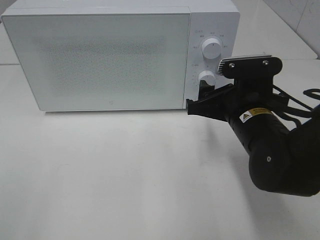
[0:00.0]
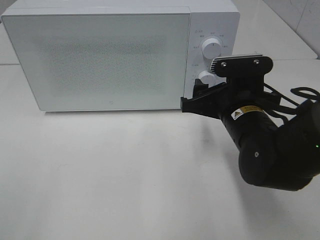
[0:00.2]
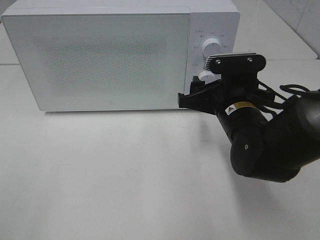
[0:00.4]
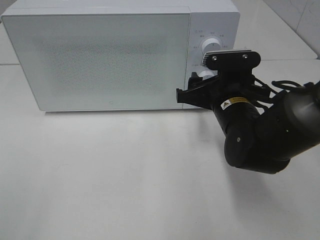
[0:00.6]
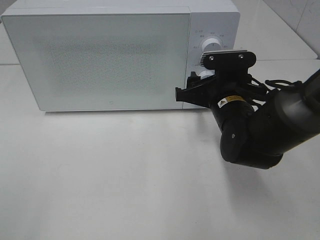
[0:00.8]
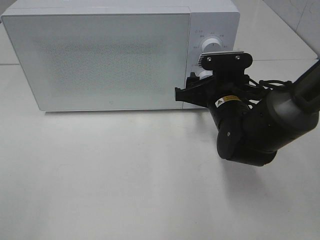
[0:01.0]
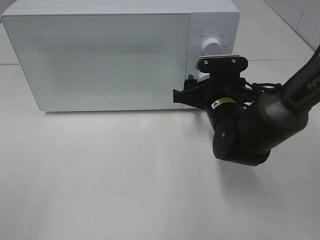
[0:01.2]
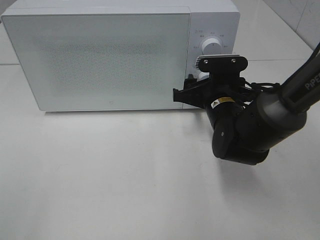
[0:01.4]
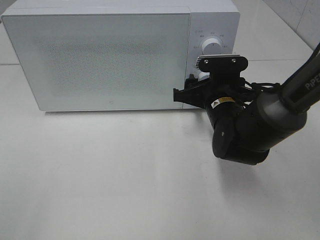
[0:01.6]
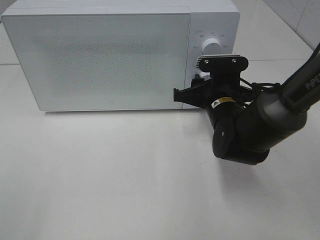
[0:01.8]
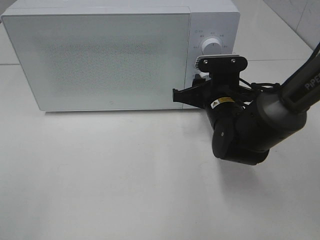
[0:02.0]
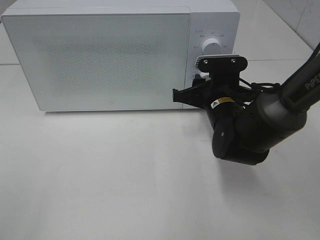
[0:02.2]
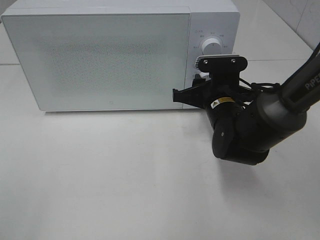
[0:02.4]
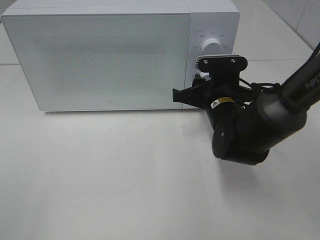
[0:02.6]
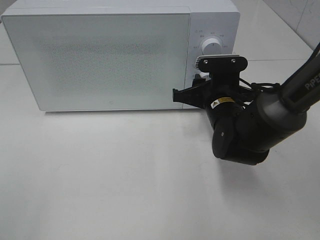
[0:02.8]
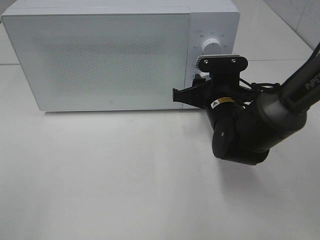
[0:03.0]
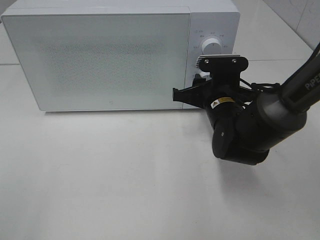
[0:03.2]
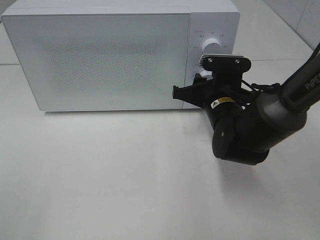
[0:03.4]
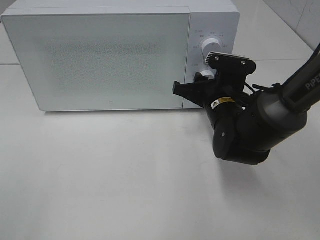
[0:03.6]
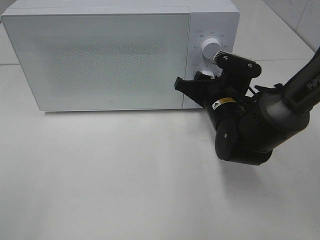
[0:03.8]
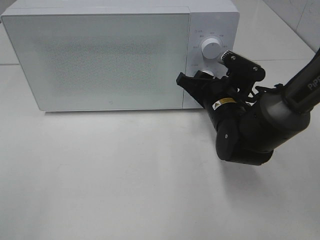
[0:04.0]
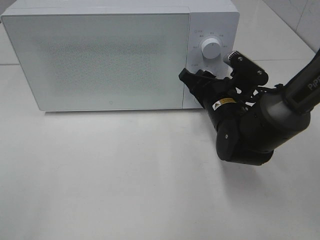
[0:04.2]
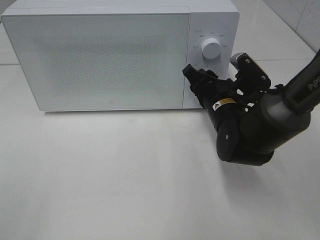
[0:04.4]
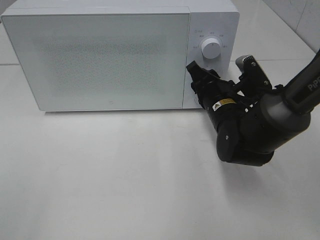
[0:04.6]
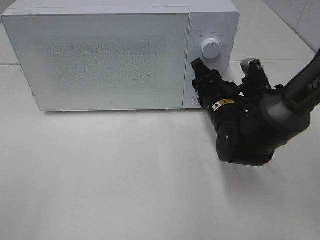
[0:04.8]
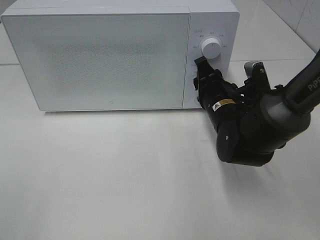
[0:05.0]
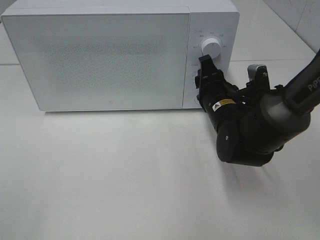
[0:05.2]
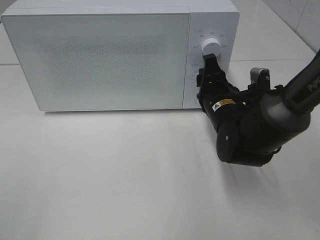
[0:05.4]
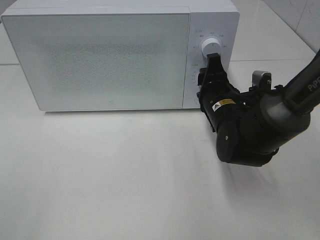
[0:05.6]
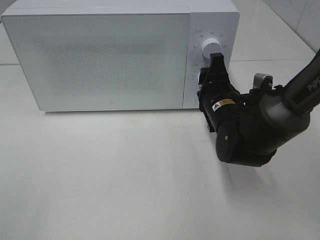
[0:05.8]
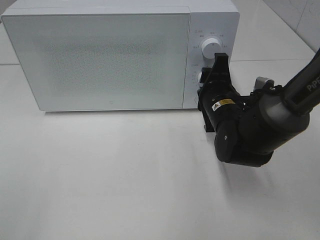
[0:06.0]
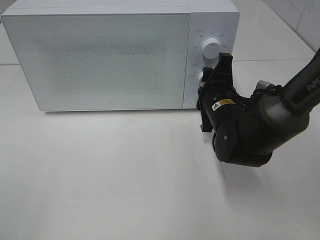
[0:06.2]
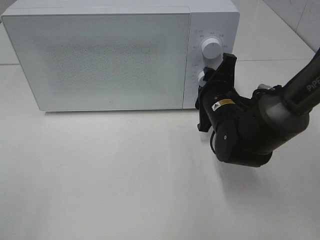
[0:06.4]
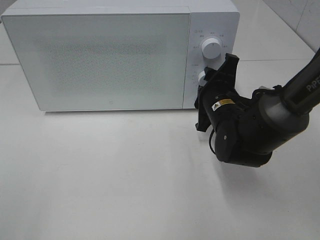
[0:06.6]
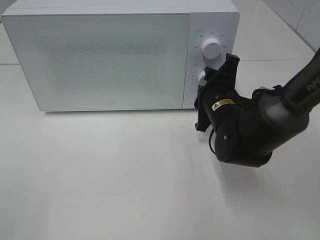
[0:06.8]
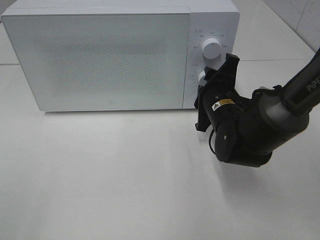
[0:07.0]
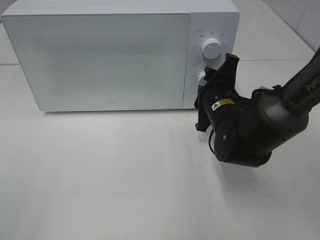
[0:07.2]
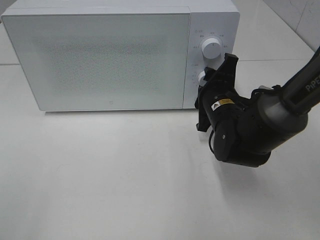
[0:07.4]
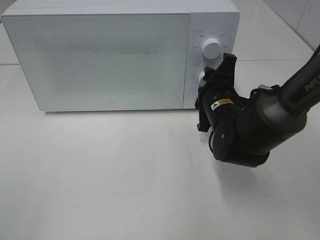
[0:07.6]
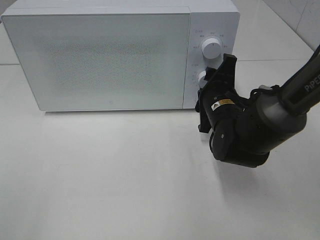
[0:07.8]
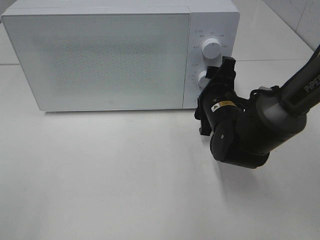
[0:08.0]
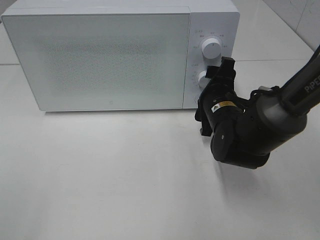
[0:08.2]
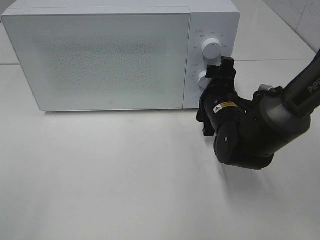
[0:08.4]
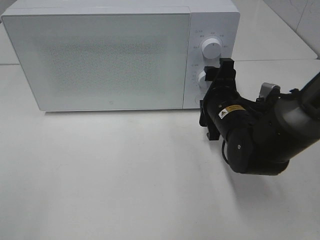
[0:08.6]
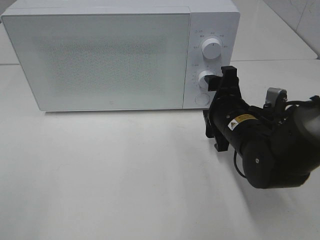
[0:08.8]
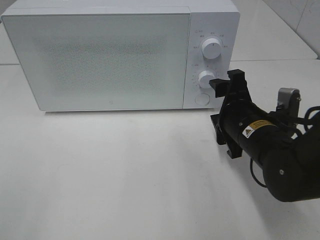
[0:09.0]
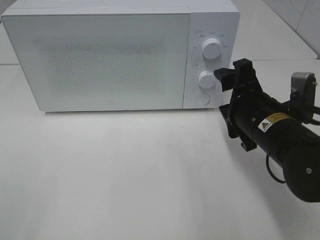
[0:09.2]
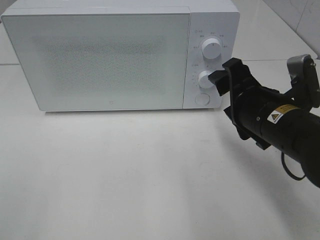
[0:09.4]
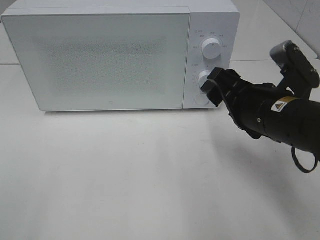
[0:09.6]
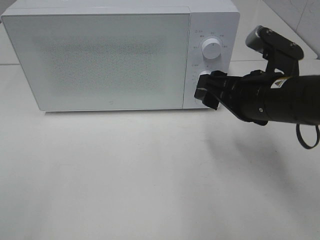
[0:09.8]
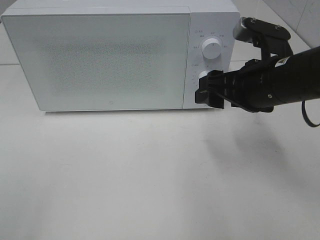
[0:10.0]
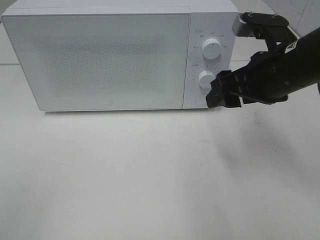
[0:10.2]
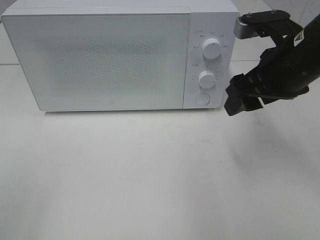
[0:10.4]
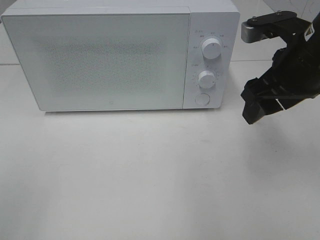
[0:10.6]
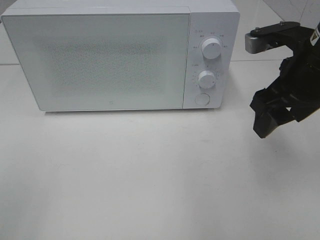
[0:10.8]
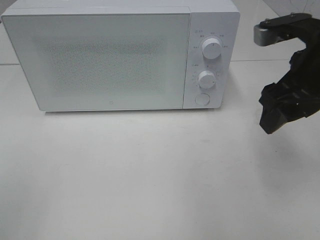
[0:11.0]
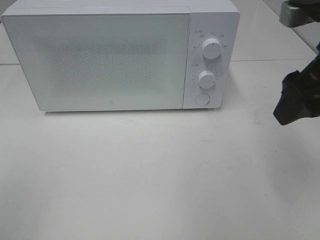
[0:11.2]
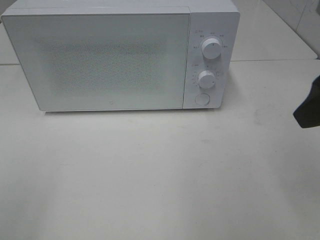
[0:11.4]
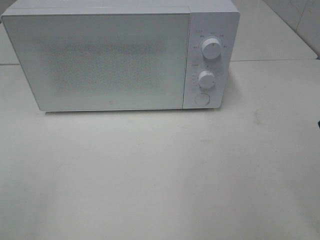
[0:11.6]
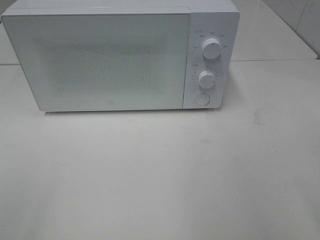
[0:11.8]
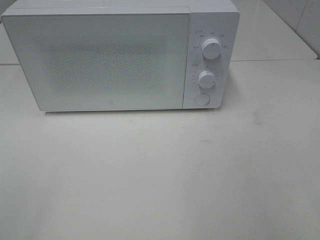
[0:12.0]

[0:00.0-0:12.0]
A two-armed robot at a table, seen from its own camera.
Task of the whole recording: Heat the burger.
Step, 0:00.0 to 0:08.2: Right hand: twist timer button.
0:00.0 to 0:01.6: The right gripper shifts roughly 5 cm forward.
0:01.6 to 0:03.0: The two grippers keep their place.
0:06.0 to 0:07.6: The grippers move only a little.
0:07.6 to 0:09.0: The right gripper is displaced backward by approximately 5 cm.
0:09.0 to 0:10.4: The right gripper moves upward, roughly 10 cm.
0:10.4 to 0:12.0: The right gripper is displaced backward by about 20 cm.

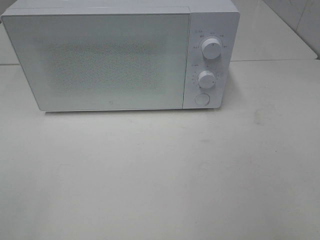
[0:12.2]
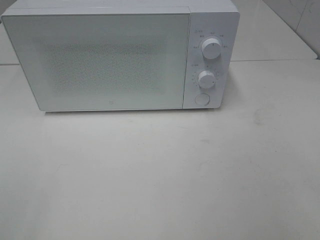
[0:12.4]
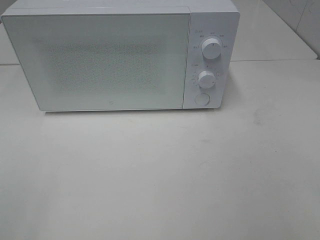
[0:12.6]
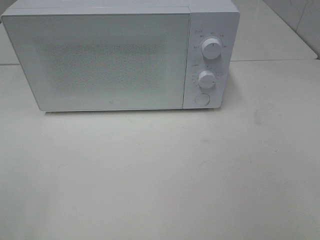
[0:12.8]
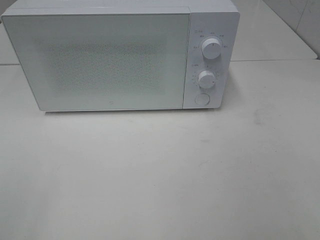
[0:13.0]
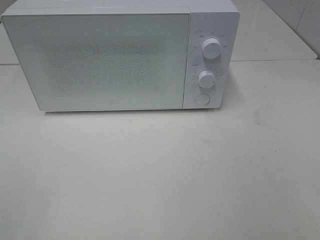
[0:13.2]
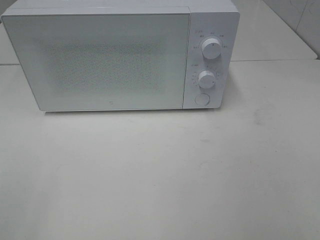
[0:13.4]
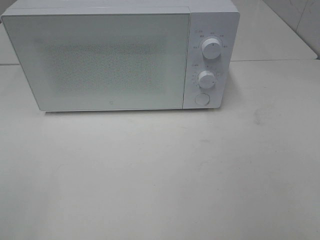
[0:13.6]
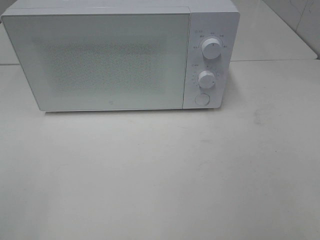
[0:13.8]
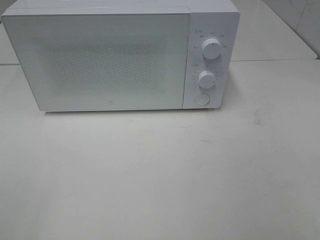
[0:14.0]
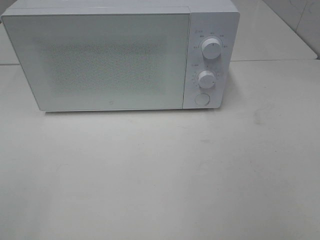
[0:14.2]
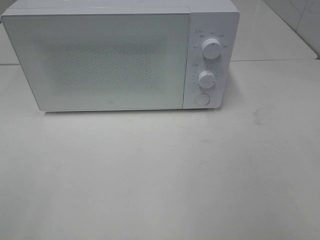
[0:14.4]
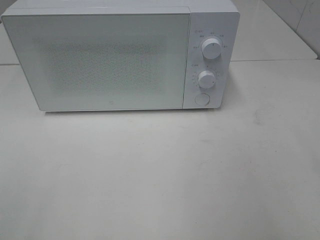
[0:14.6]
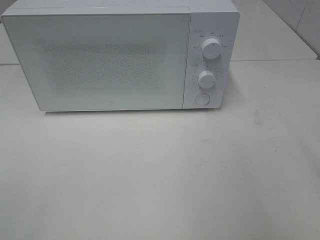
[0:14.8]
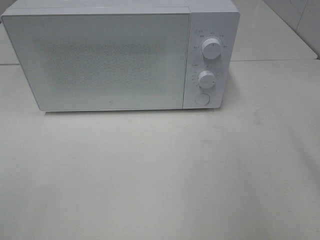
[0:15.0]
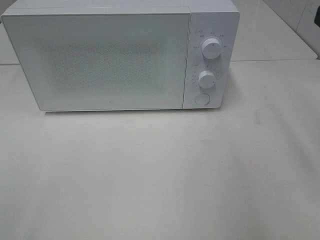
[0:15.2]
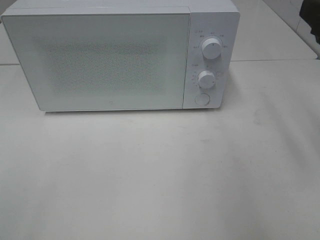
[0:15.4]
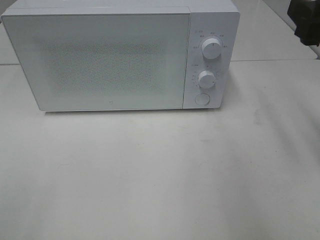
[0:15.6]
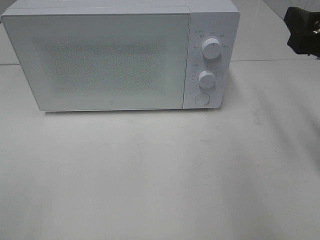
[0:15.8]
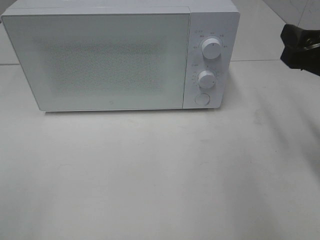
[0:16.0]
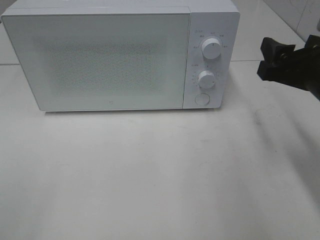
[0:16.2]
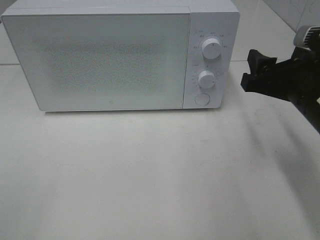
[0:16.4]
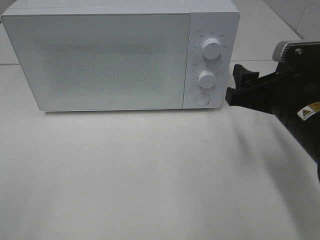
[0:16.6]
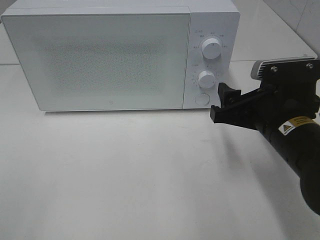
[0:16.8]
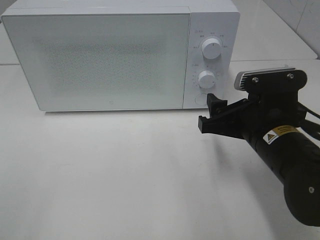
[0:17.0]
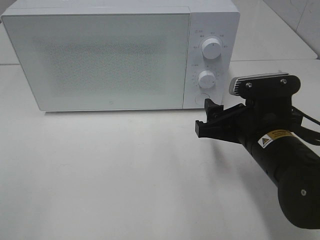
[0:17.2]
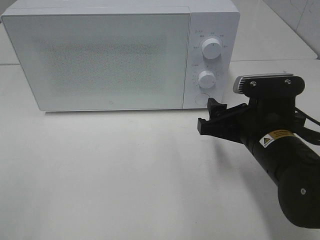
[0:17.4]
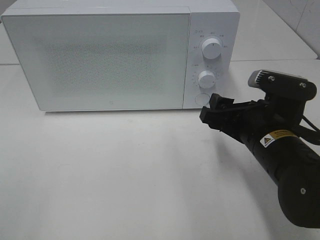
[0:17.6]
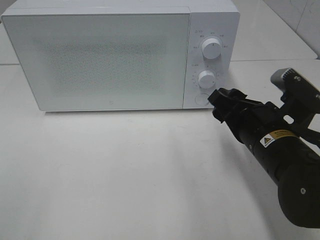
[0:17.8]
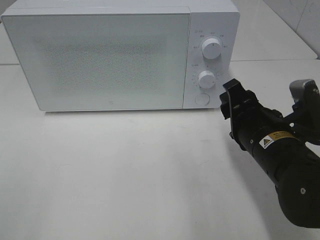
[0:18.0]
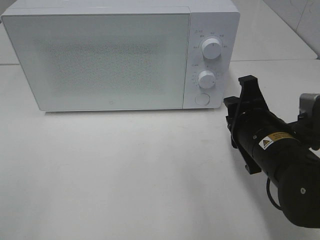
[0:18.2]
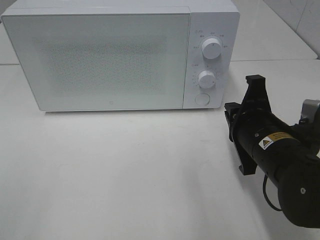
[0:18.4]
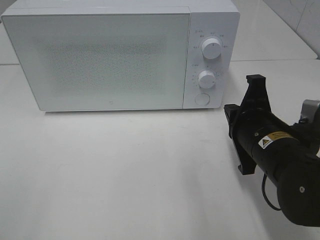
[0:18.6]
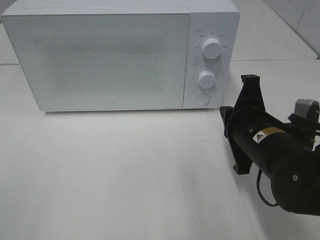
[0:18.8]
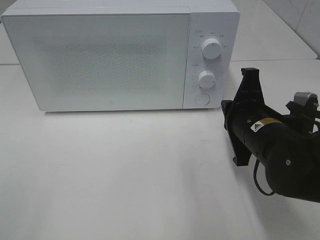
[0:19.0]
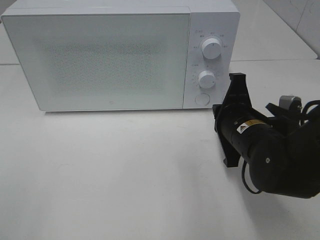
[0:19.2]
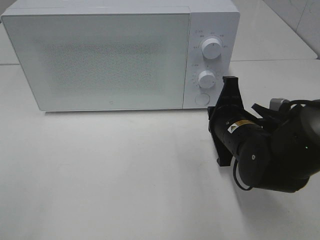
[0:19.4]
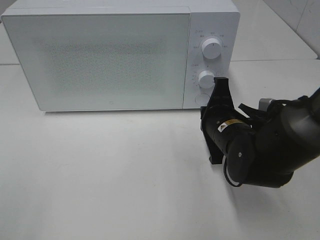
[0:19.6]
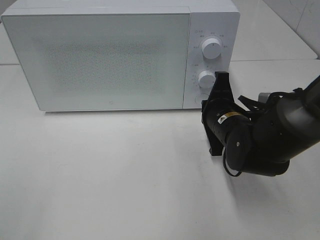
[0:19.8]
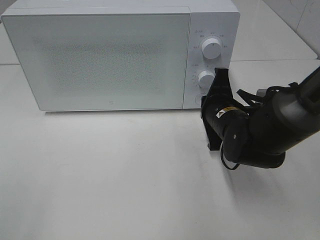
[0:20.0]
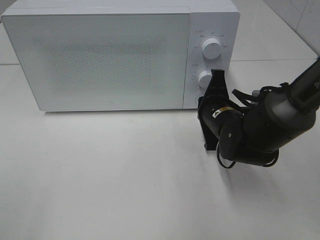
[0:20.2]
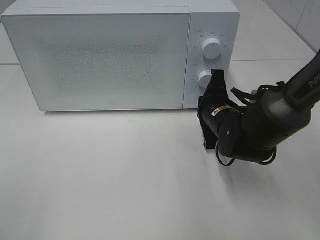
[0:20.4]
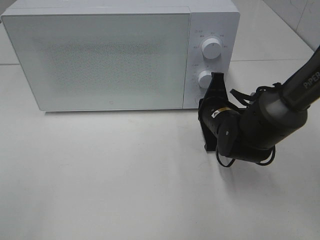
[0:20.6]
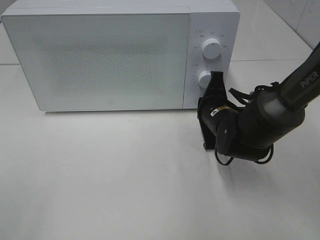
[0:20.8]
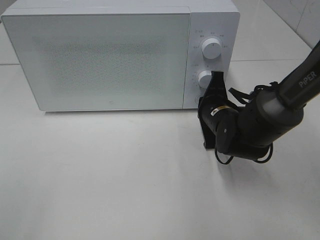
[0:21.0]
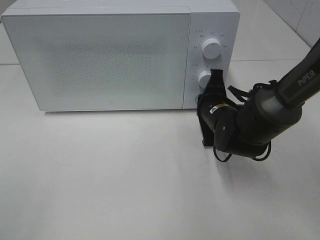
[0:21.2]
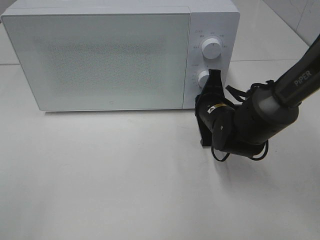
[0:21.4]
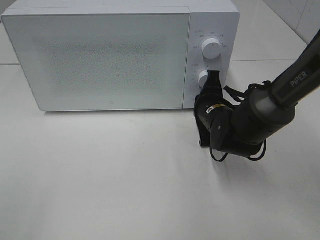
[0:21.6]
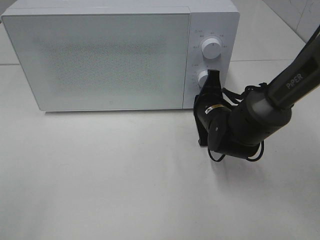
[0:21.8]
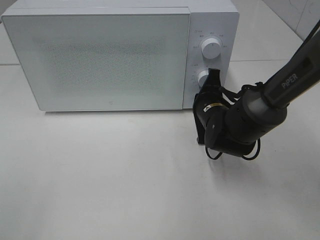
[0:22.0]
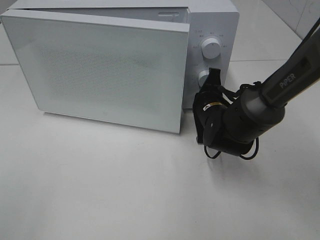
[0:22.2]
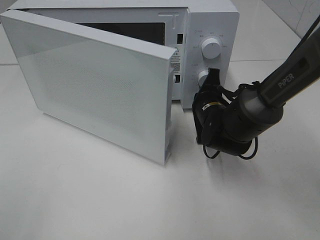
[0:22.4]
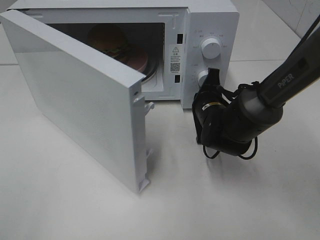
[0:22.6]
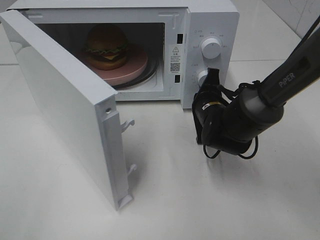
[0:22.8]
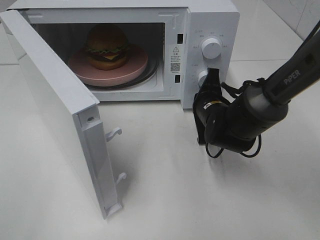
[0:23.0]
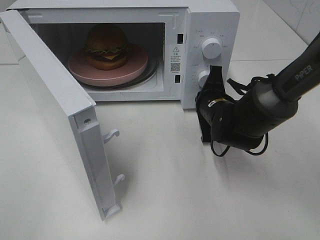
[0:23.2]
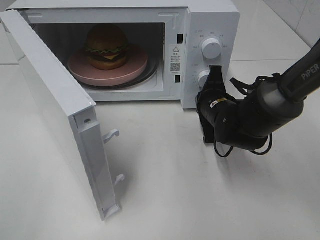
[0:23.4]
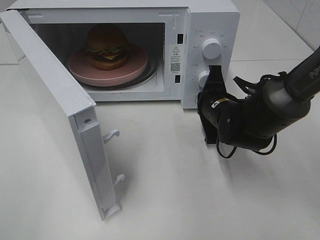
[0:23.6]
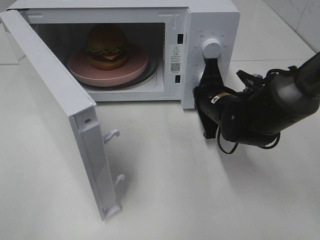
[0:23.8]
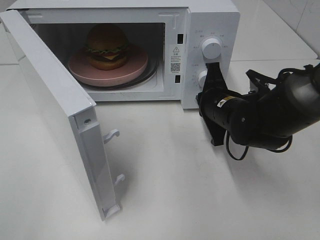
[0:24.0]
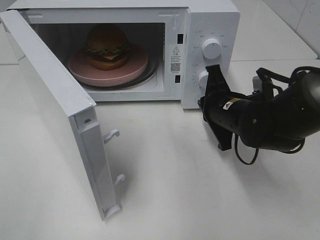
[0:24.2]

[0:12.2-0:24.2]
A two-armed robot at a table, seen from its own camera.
Task of the whole recording: Heat the burger.
Step, 0:12.2 to 0:23.8: Right hand: press the switch.
0:15.2 to 0:16.6: The right gripper moves downward and to the left, about 15 cm.
0:16.6 to 0:18.2: The right gripper ends up about 5 cm from where it was, and closes up.
0:18.2 to 0:19.8: The right gripper travels forward by about 10 cm, and closes up.
0:19.8 to 0:21.2: There are only small adjustments of the grippers.
0:22.6 to 0:24.2: The right gripper shifts by some 5 cm.
